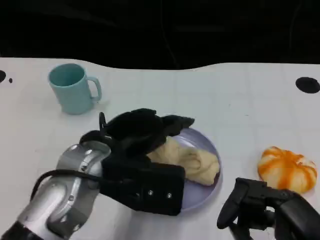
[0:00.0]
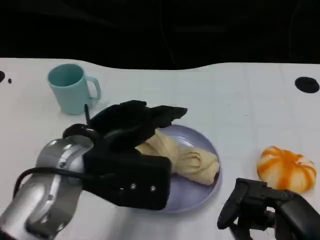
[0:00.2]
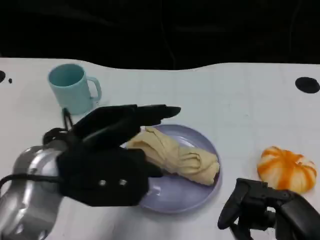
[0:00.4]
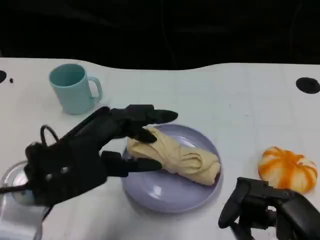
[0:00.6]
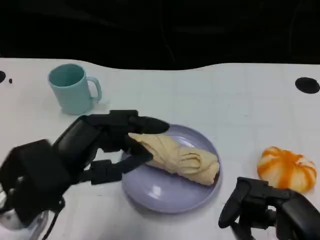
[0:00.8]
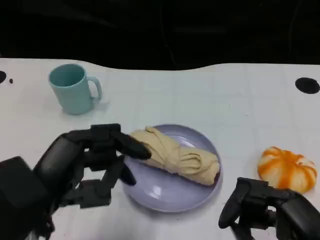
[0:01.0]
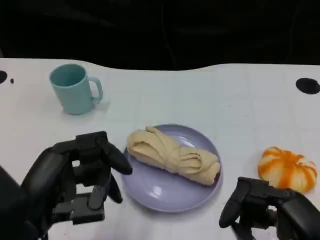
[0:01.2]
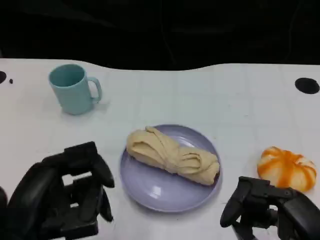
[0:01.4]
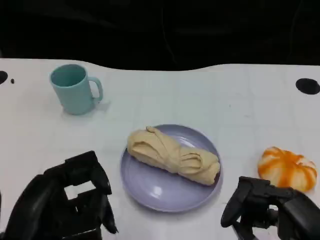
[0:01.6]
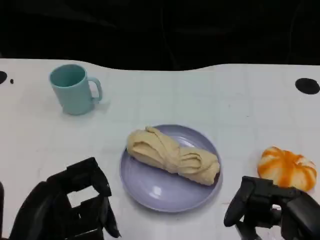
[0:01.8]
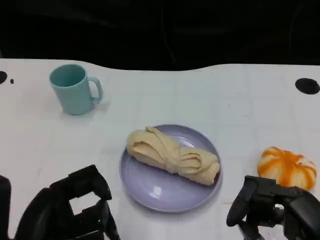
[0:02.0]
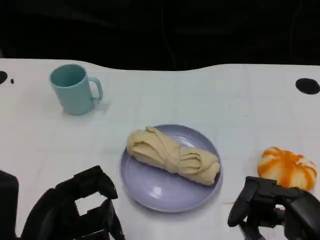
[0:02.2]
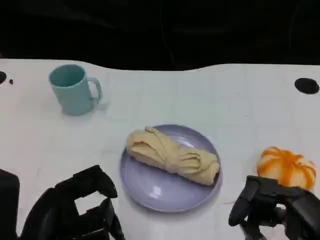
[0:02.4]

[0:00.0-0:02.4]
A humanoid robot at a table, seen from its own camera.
Task of the whole recording: Grasp the towel on the left side of the plate with the left hand and place it into the plate.
0:00.0 to 0:01.2: The left hand travels backward and to the left by about 15 cm.
